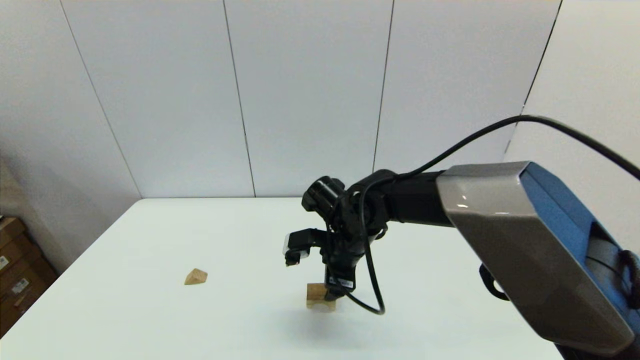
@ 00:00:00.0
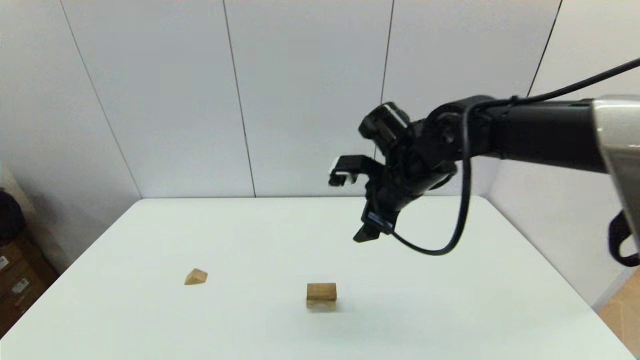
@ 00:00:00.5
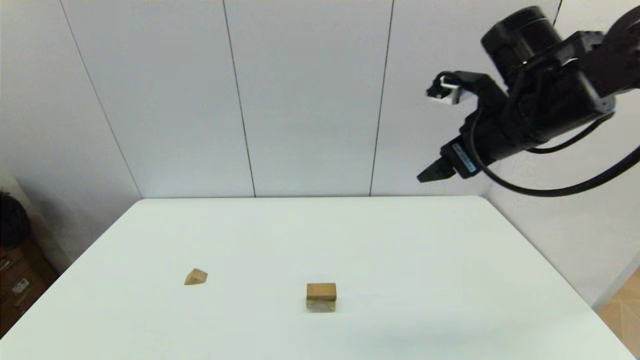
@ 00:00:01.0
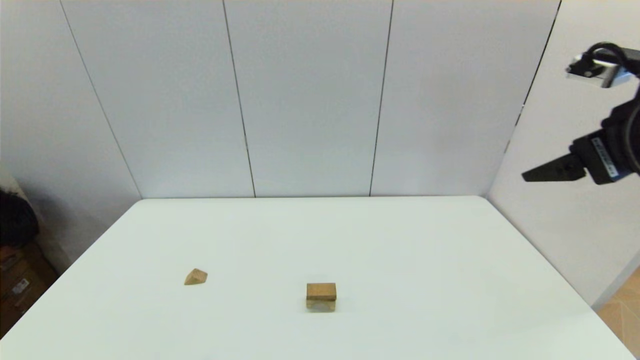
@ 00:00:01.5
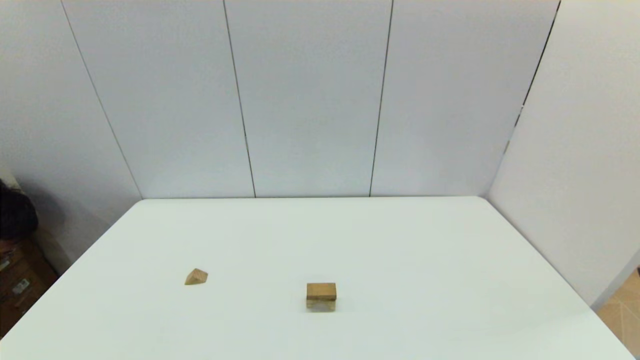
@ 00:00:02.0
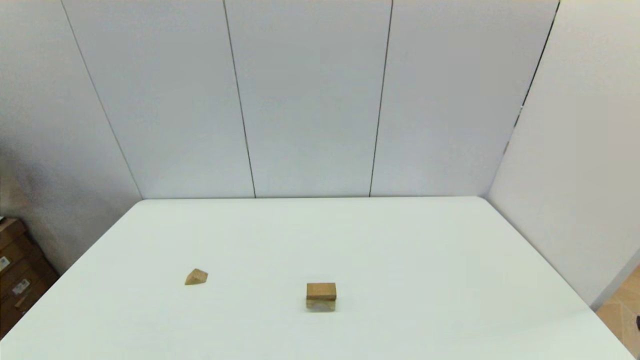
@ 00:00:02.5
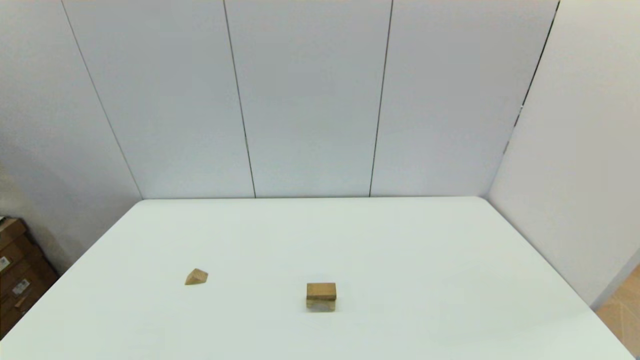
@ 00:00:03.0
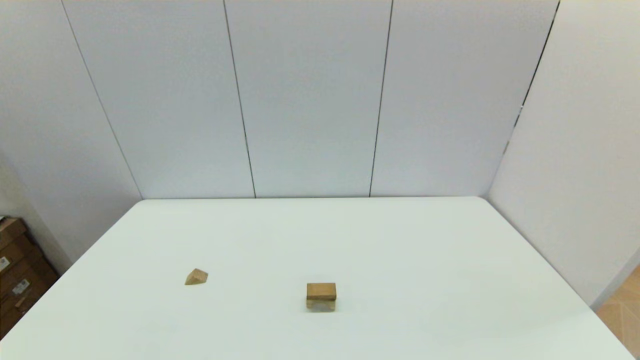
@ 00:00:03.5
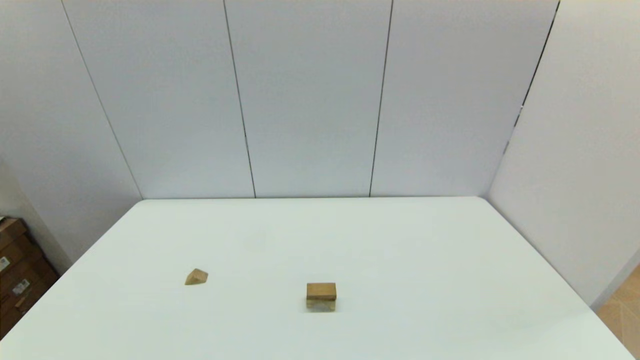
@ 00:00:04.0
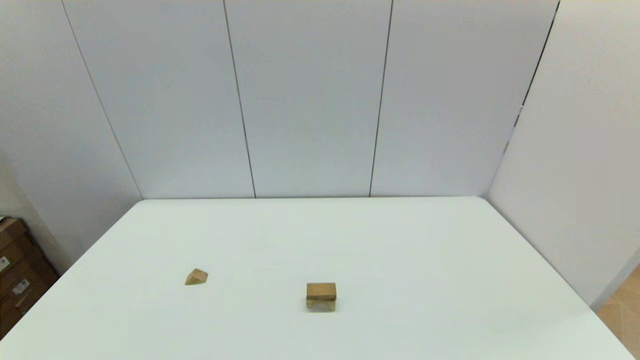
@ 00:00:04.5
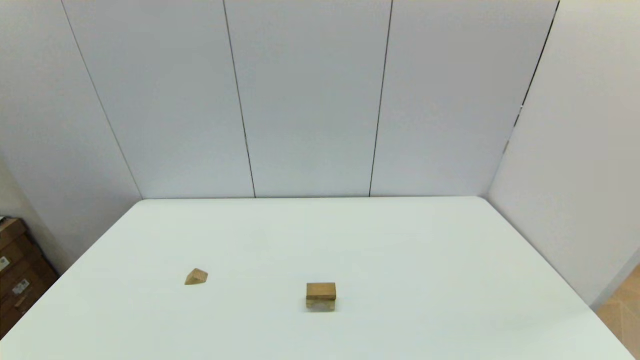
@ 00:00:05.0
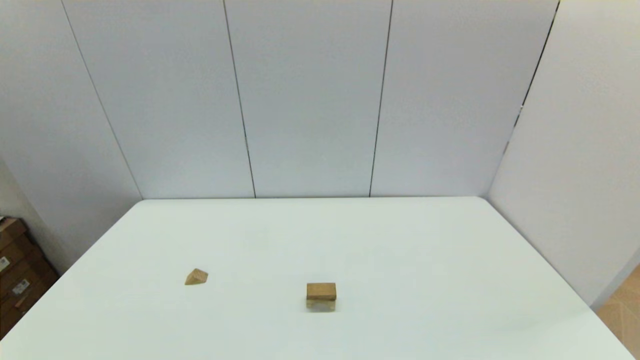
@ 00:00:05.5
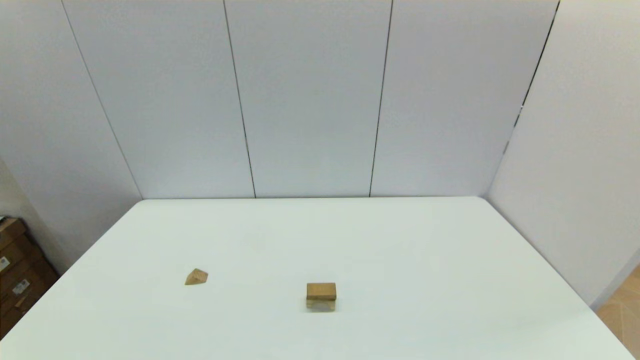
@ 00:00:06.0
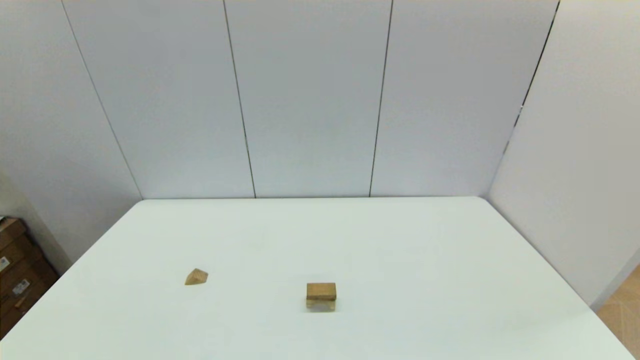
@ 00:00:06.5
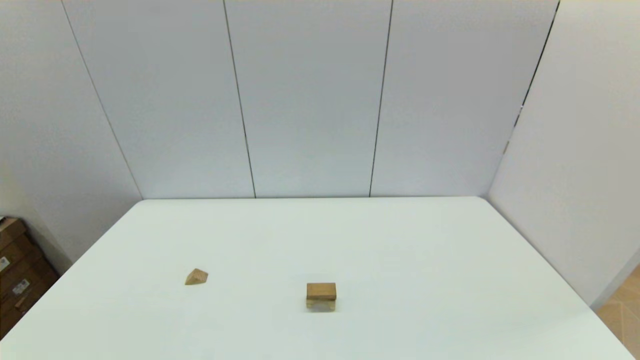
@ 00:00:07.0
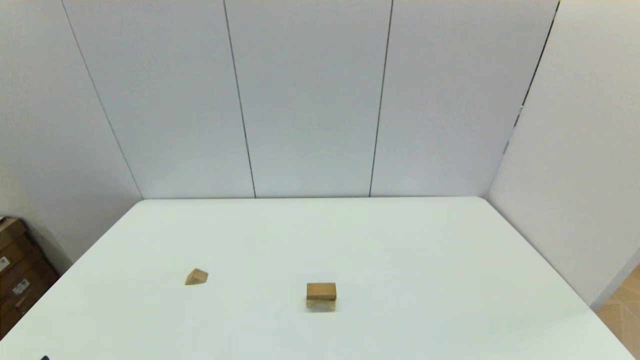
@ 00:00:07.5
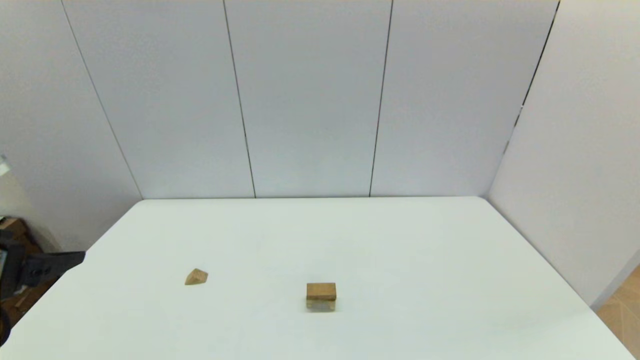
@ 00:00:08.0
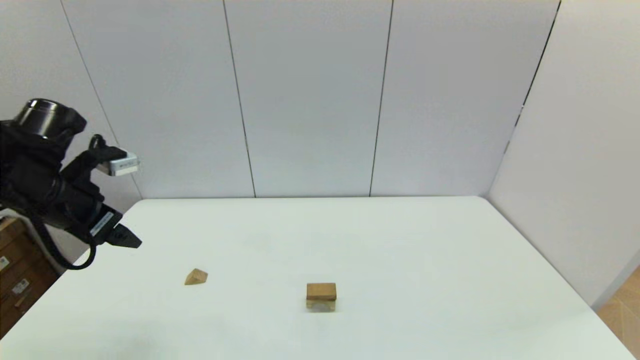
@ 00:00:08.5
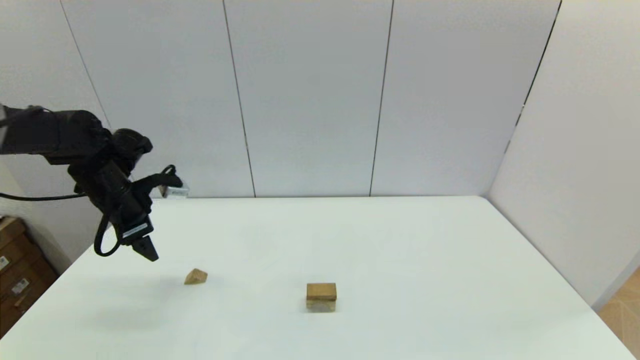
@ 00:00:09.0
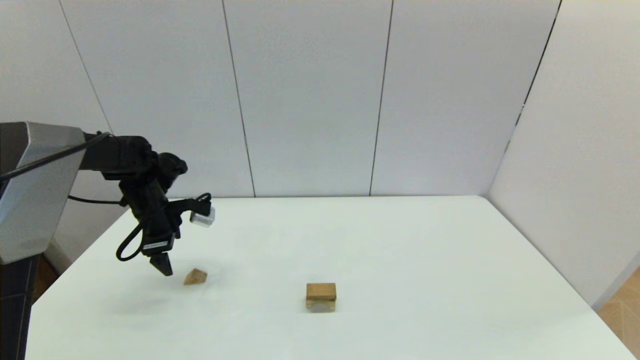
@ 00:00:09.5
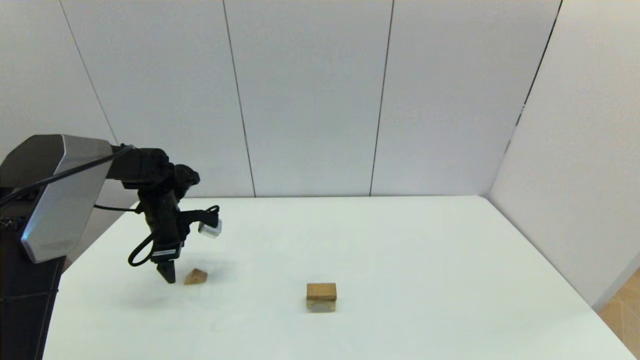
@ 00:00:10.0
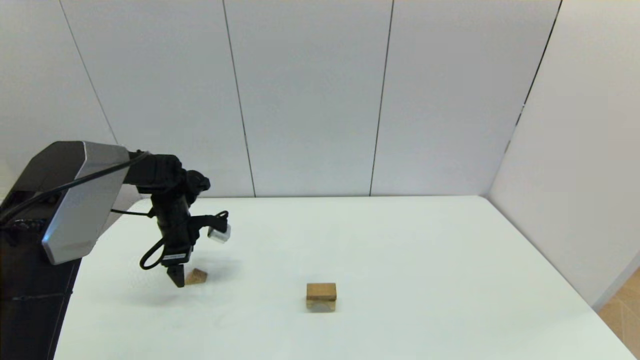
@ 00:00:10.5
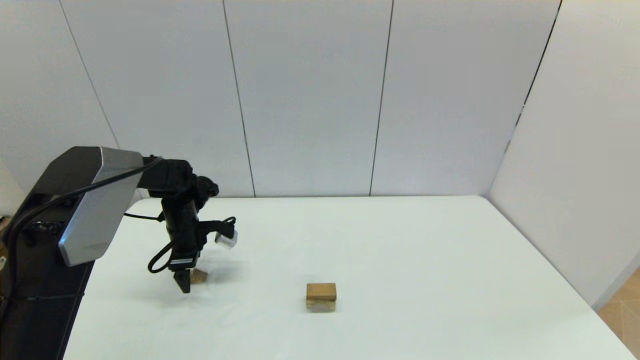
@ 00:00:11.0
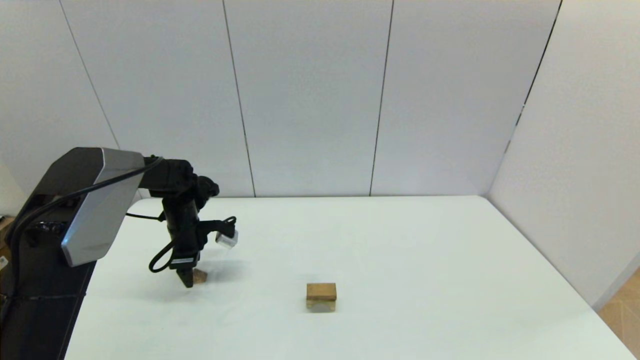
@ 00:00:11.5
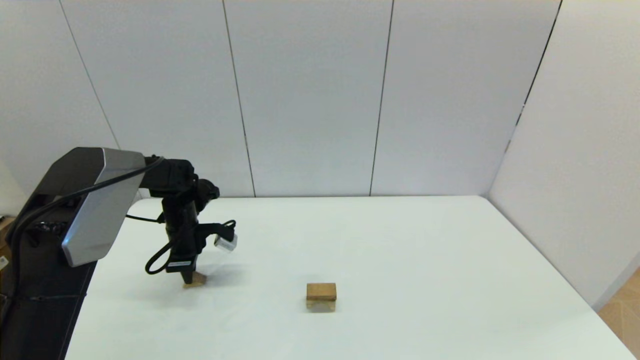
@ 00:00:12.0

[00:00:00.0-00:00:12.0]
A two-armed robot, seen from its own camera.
Task of the whole recording: place the arched building blocks in the center of the table, set up the rectangular building blocks, and then set up the triangular building blocks.
Step, 00:00:00.0 to 00:00:11.5: Grasp the triangle-shaped block with the left gripper.
00:00:00.0 to 00:00:02.0: The right gripper goes roughly 40 cm to the right, backward and upward.
00:00:06.0 to 00:00:08.0: The left gripper goes roughly 25 cm upward and forward.
00:00:08.0 to 00:00:10.0: The left gripper heads forward and downward, covering about 35 cm.
00:00:10.0 to 00:00:12.0: The left gripper closes.

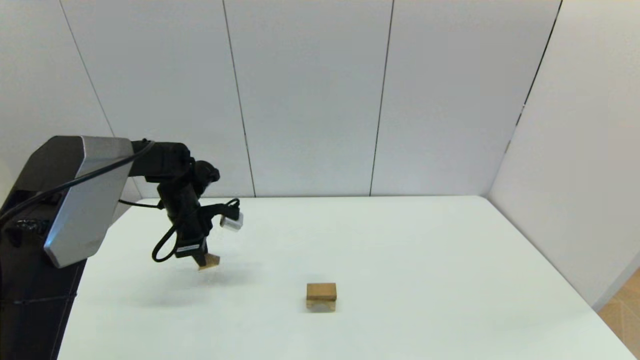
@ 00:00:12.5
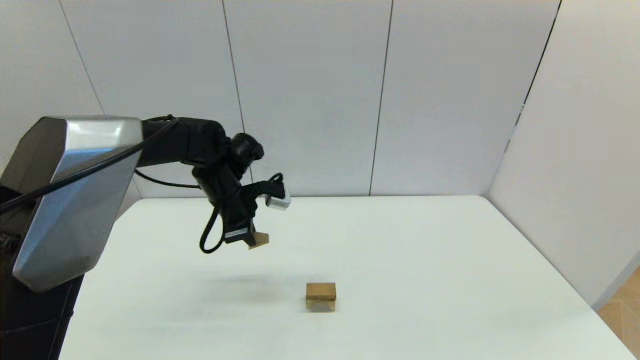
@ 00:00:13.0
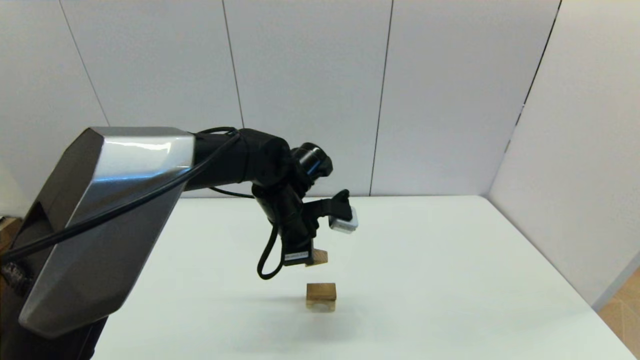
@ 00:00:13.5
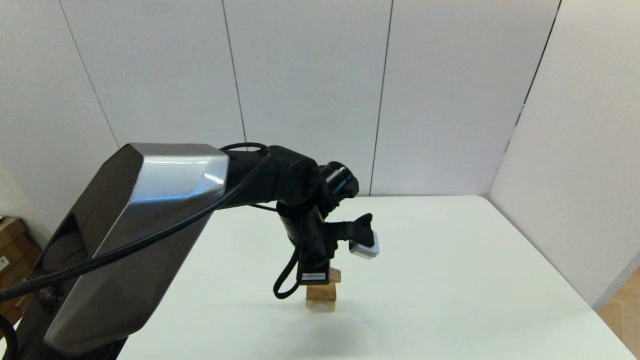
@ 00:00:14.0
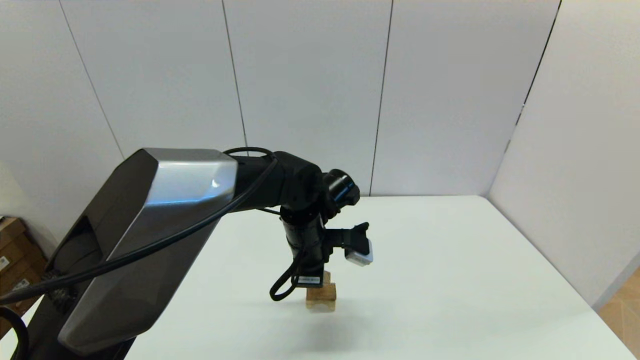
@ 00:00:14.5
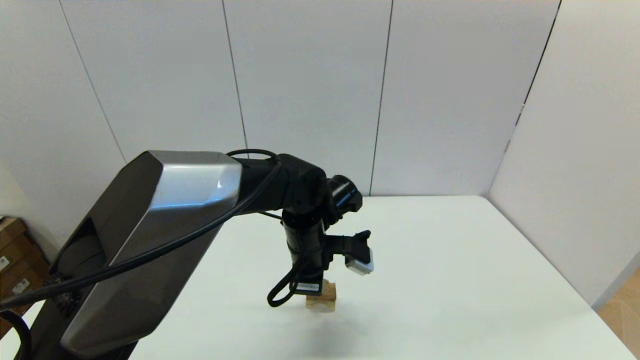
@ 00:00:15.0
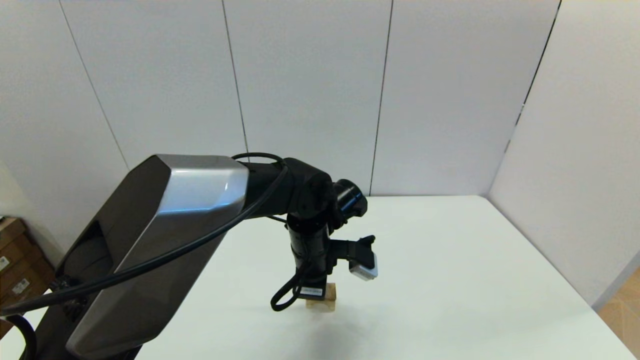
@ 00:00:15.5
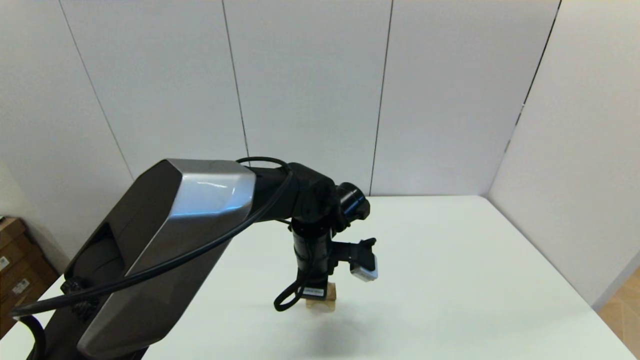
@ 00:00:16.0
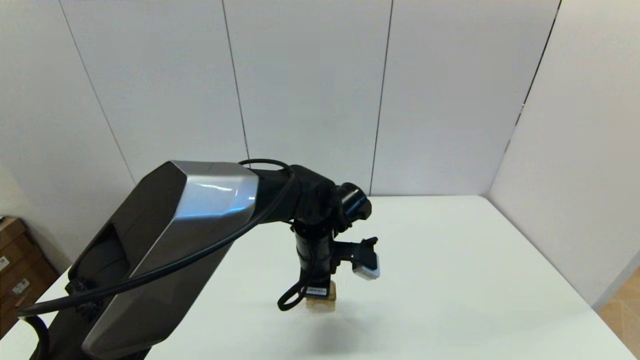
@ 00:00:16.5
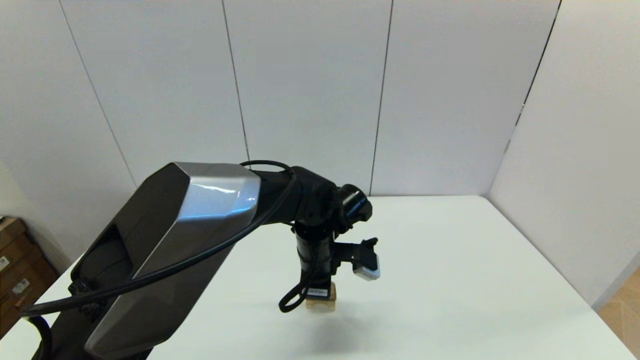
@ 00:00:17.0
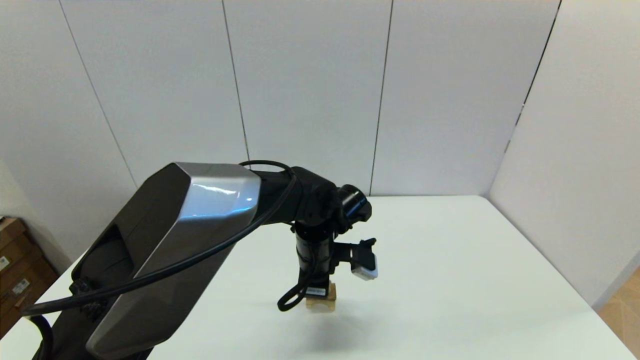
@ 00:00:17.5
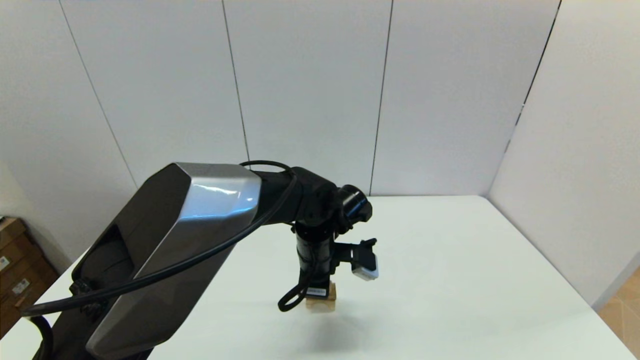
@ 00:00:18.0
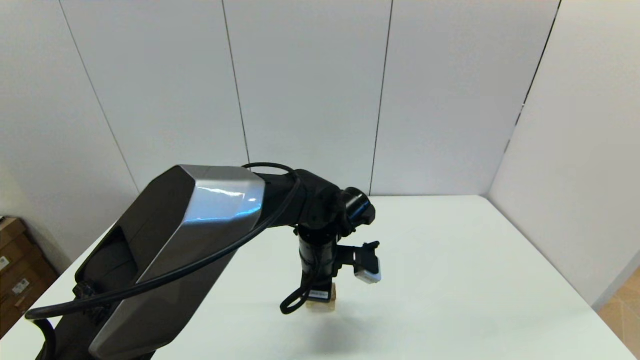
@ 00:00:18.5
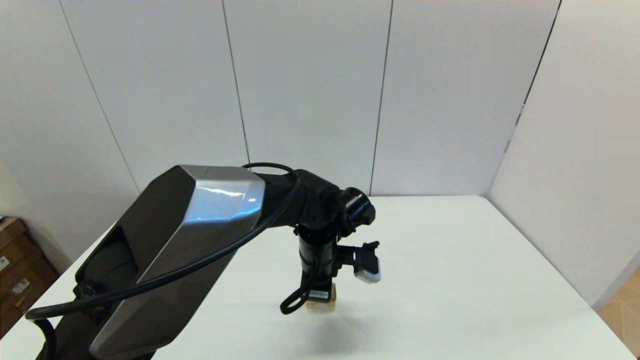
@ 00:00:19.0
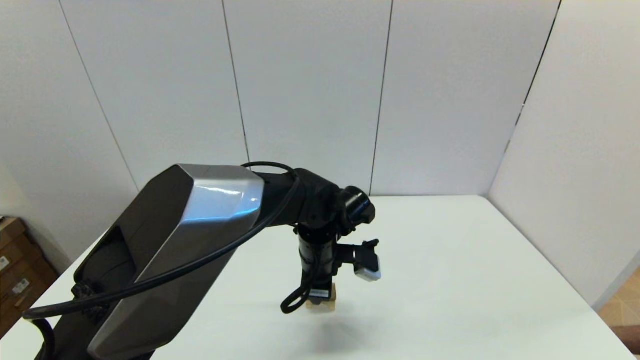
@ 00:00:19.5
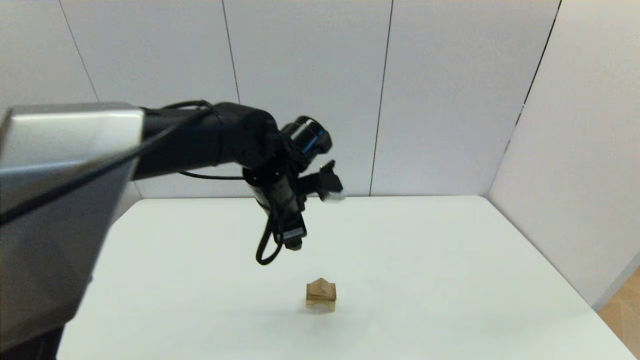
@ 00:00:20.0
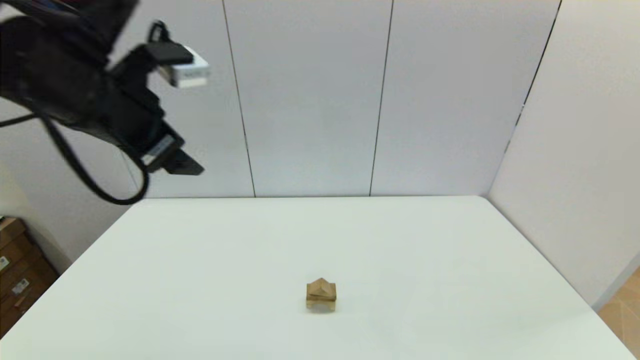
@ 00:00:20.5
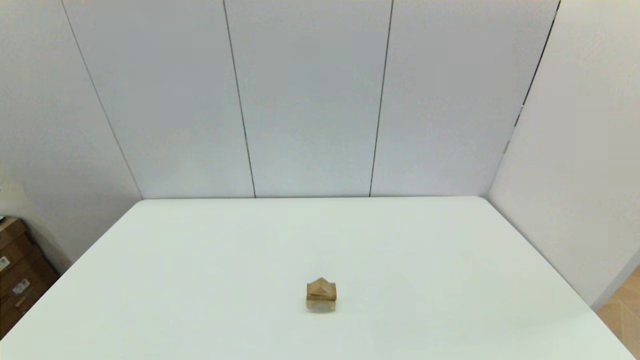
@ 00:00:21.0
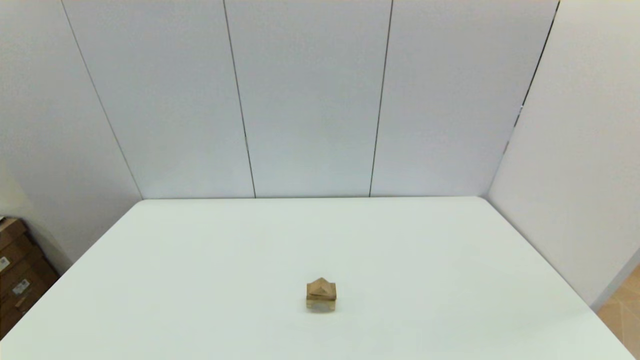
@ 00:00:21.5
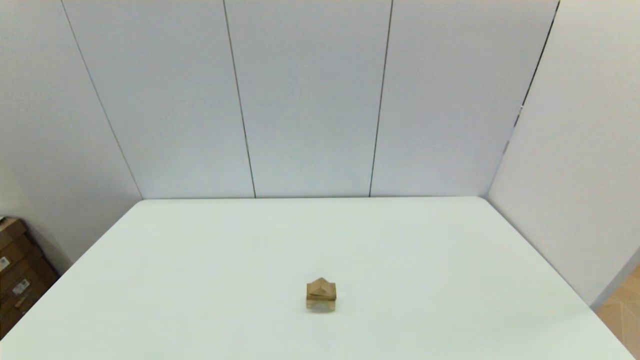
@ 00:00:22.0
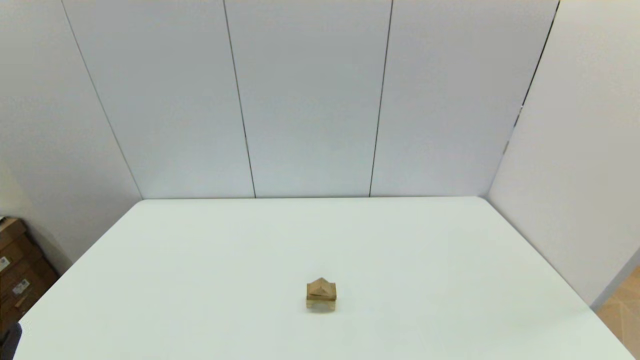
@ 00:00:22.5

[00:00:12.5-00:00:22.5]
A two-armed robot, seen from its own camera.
Task of the whole recording: place the arched building blocks in the center of the table, set up the rectangular building blocks, and then set up the triangular building blocks.
00:00:12.5 to 00:00:14.5: The left gripper moves to the right and backward, some 25 cm.
00:00:14.5 to 00:00:16.5: The grippers make only small movements.
00:00:16.5 to 00:00:18.5: Both grippers stay put.
00:00:18.5 to 00:00:20.5: The left gripper goes approximately 30 cm upward and to the left, and opens.
00:00:20.5 to 00:00:22.5: The left gripper heads backward, downward and to the left, covering roughly 35 cm.
